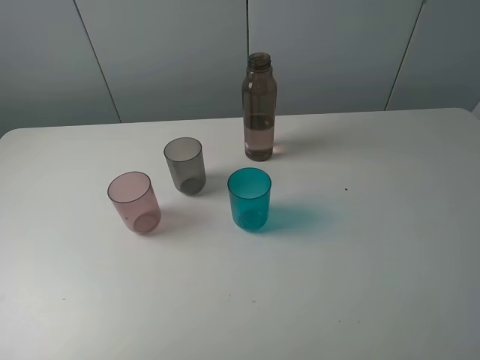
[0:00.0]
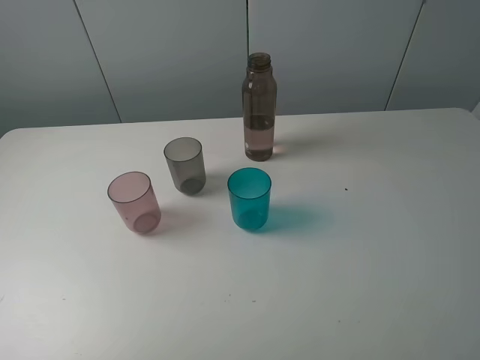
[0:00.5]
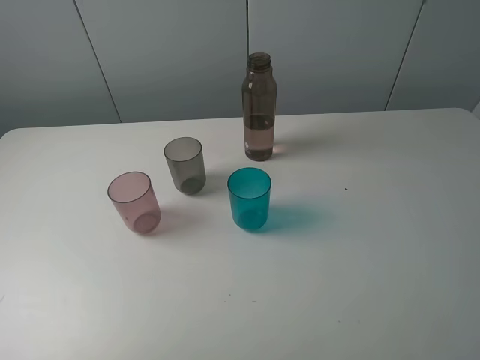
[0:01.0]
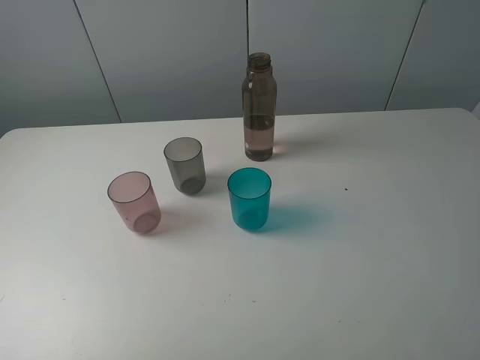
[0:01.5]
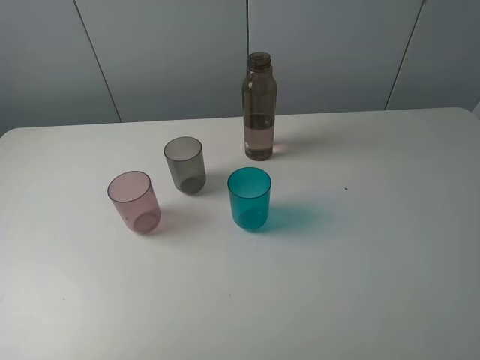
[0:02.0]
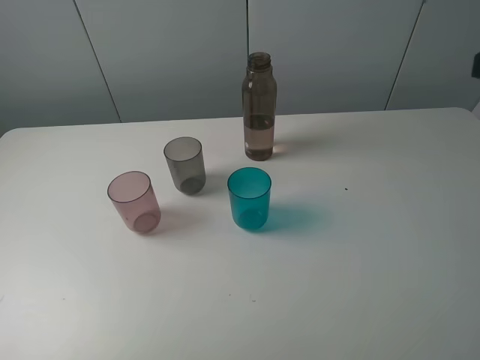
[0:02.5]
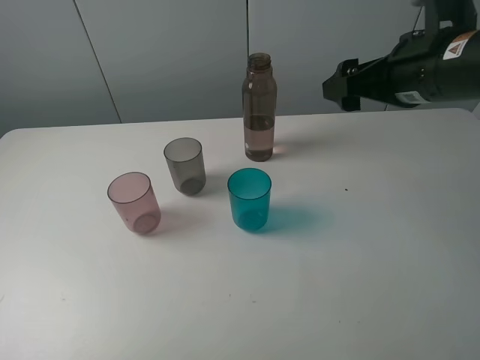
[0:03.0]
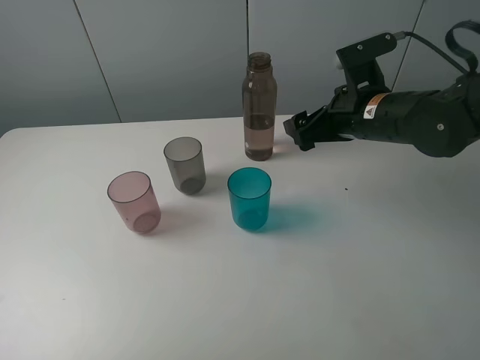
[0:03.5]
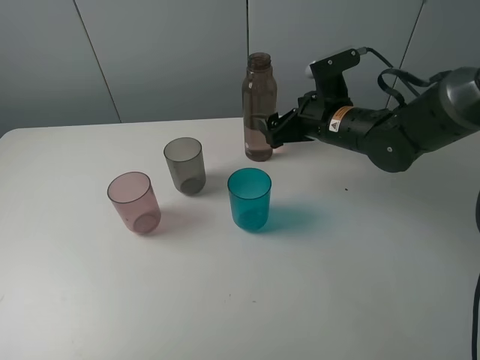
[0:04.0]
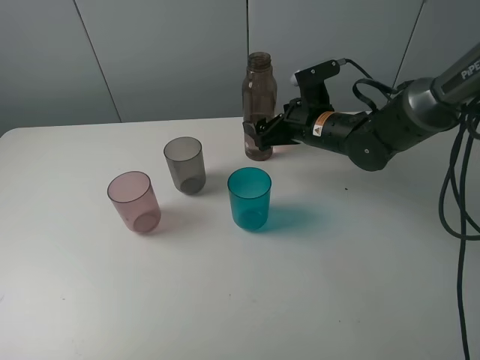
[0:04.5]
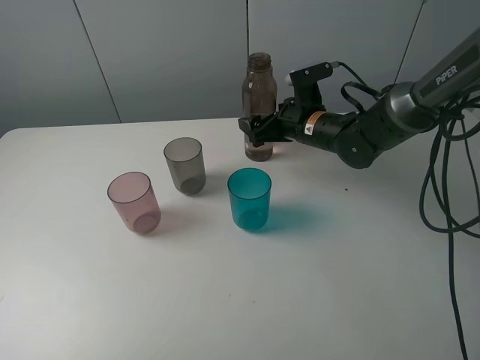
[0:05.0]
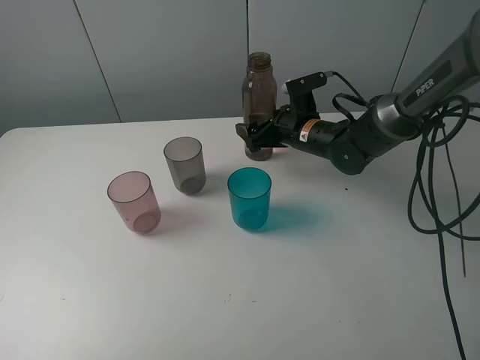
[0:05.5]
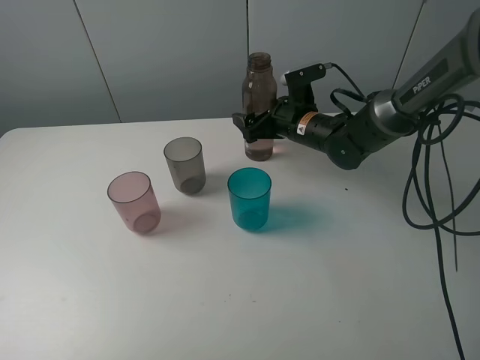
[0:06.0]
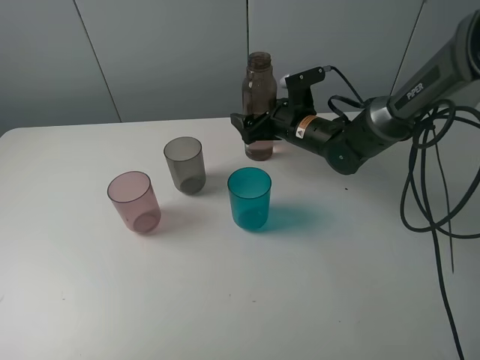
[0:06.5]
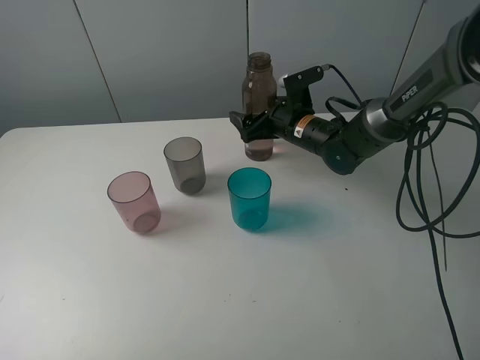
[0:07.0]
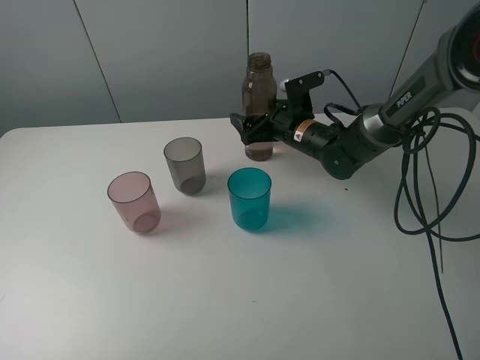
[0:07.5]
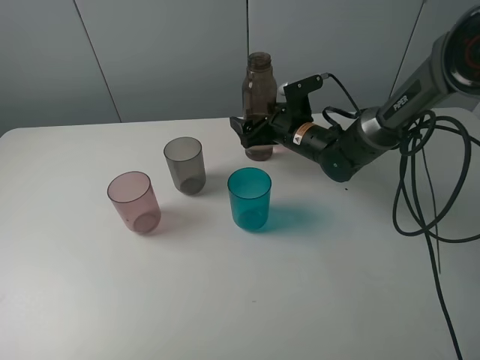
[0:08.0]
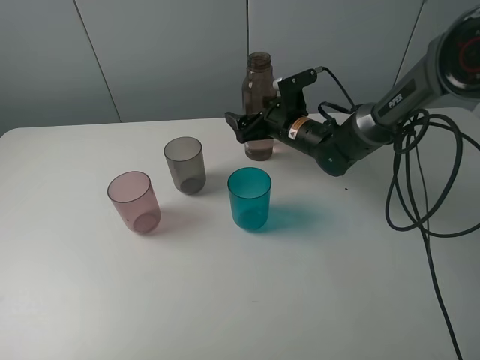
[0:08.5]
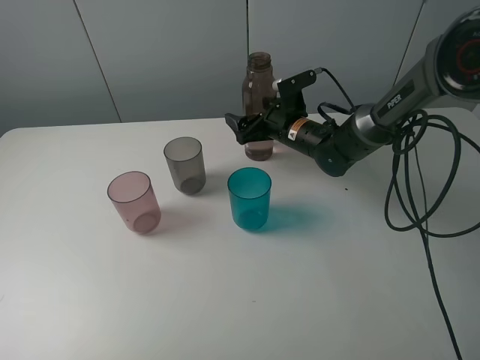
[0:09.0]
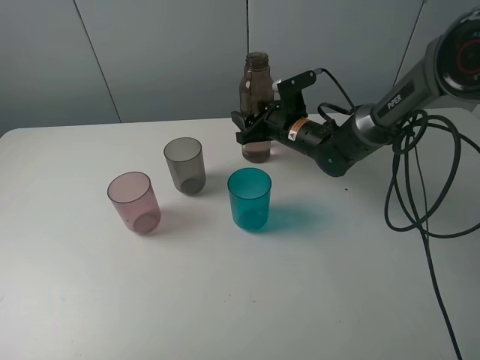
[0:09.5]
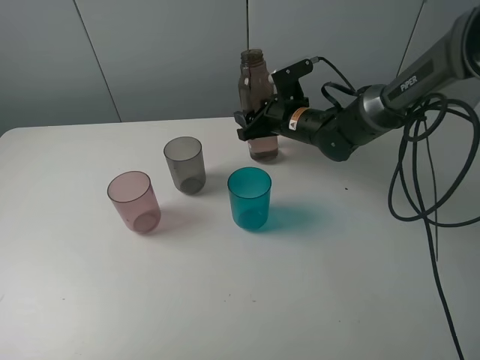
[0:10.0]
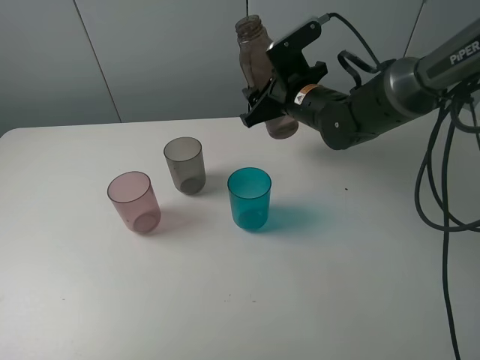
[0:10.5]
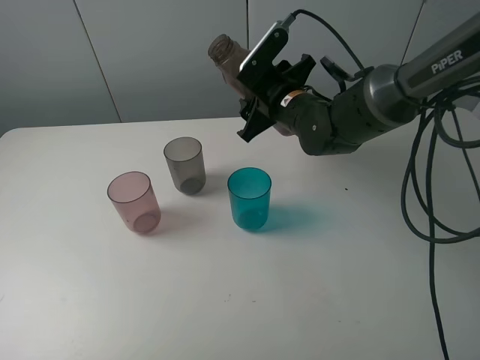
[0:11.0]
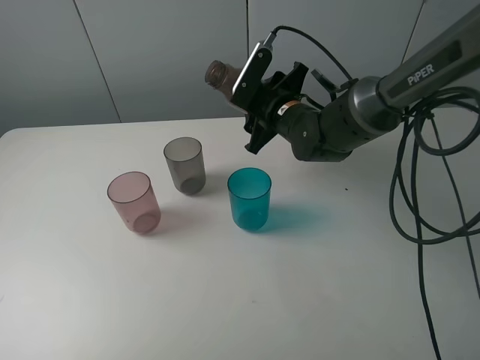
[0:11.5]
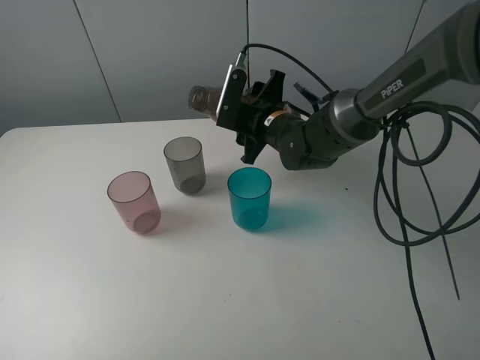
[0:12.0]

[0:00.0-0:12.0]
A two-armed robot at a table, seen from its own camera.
Task of the whole recording: pick up the bottle filled with water and pour water into the middle cup of the three cups.
Step, 0:00.0 to 0:09.5: Grasp the brown bottle with the right gripper.
0:02.0 to 0:04.0: The right gripper is displaced forward, downward and to the left by roughly 40 cm.
0:04.0 to 0:06.0: The right gripper travels forward by approximately 5 cm.
0:06.0 to 0:08.0: The grippers move only a little.
0:08.0 to 0:10.0: The right gripper closes.
0:10.0 to 0:12.0: The right gripper moves approximately 5 cm.

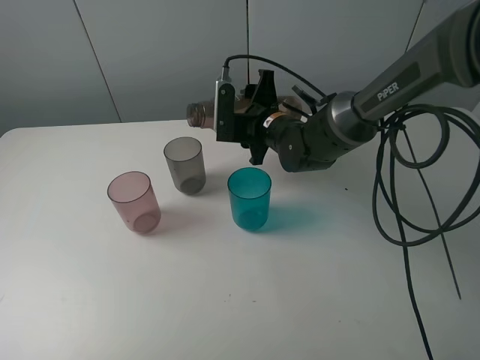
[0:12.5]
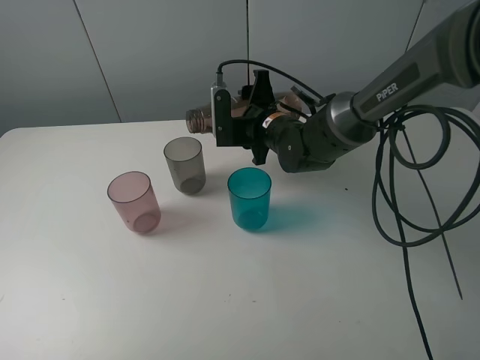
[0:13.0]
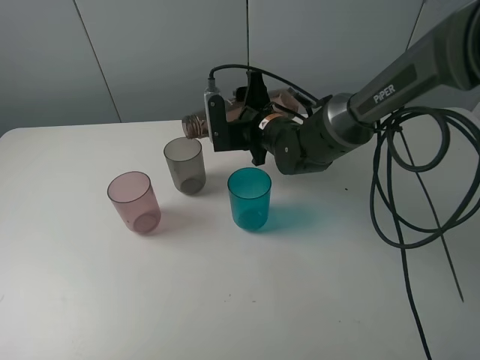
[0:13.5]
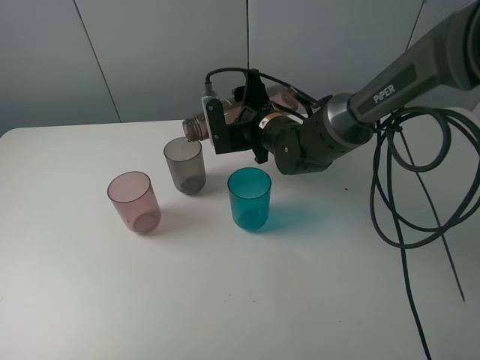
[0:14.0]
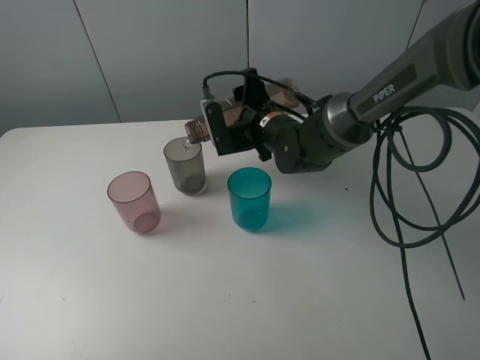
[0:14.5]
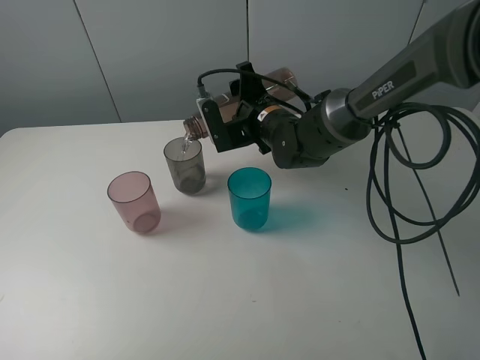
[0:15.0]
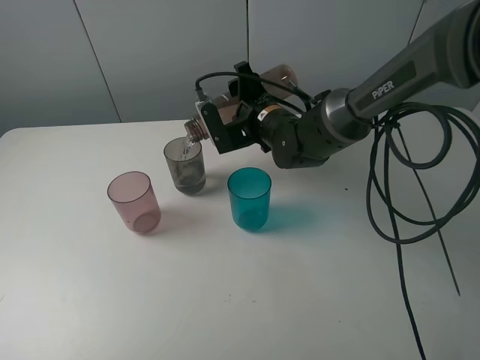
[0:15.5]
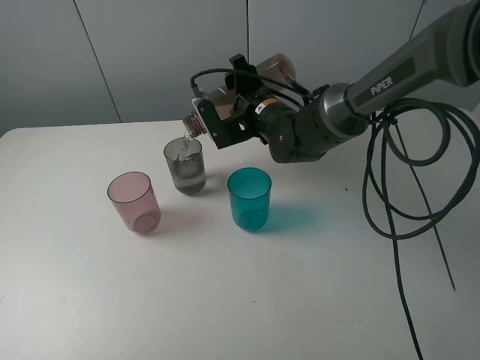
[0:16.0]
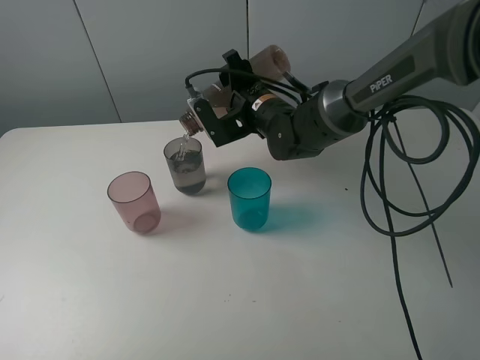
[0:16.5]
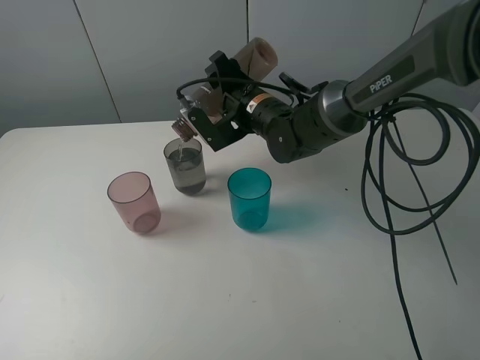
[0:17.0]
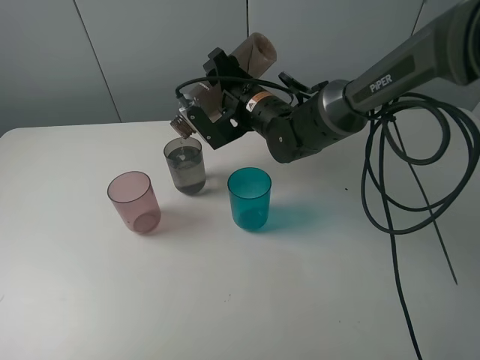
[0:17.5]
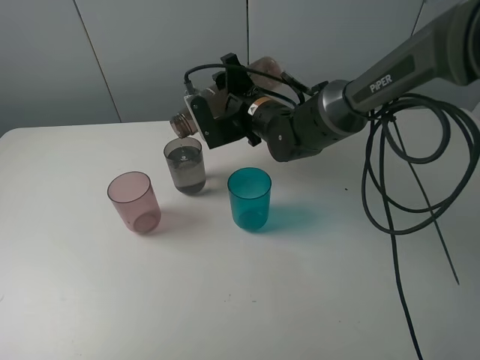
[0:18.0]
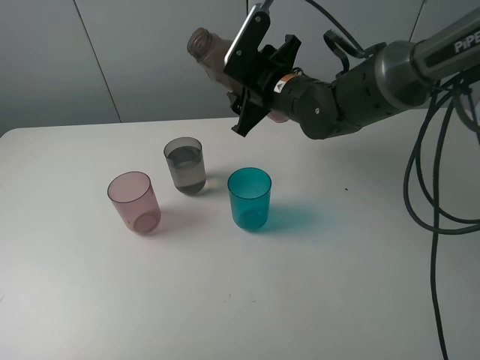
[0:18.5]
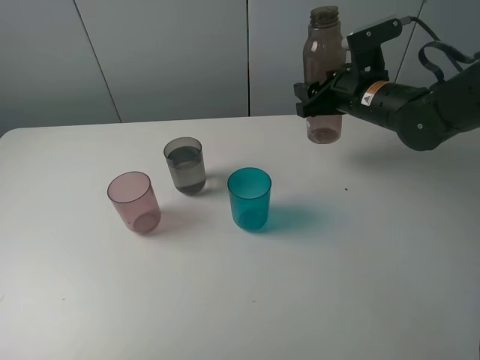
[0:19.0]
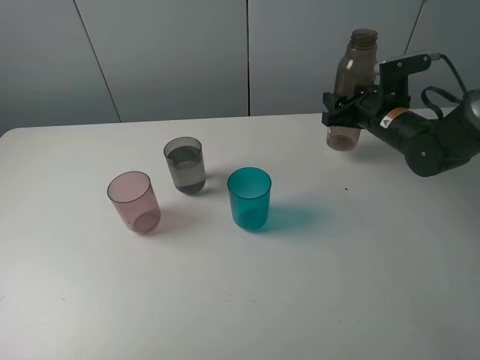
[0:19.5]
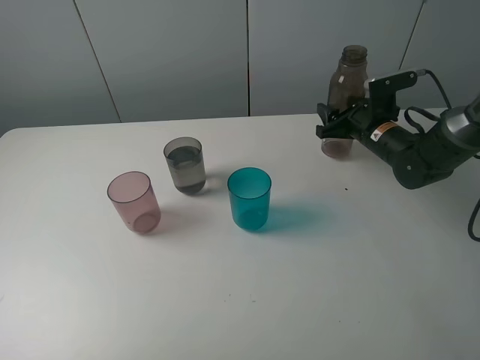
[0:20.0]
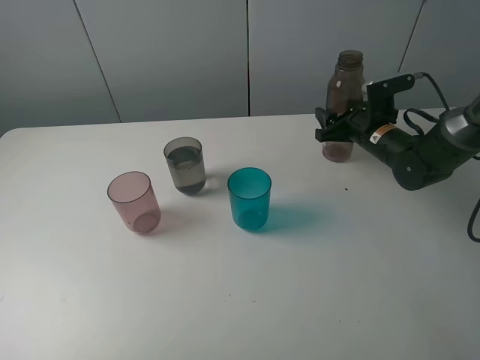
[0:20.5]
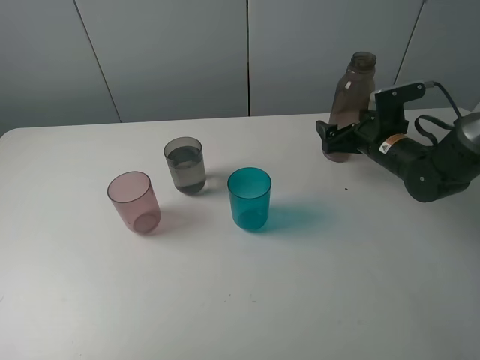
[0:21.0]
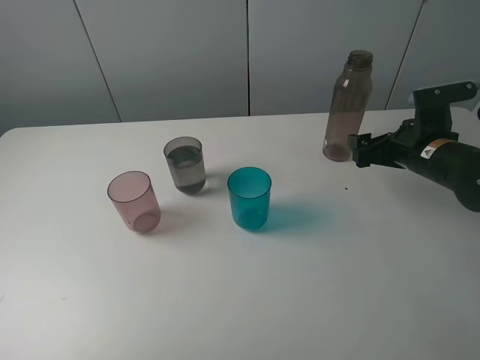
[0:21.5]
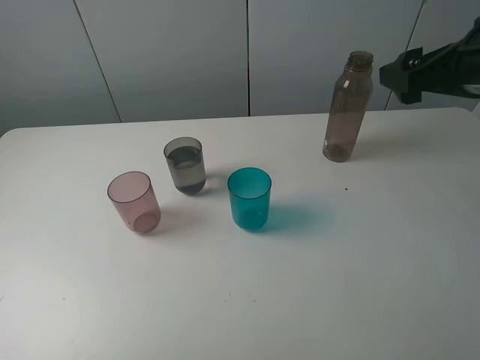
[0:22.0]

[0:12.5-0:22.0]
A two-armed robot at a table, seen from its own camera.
Task of the whole recording: pick up the bottle filled with water and pour water into the middle cup of the three cups.
Step, 0:13.5 to 0:21.0: Place the brown bottle with the right gripper.
0:12.5 to 0:14.5: There are only small adjustments of the grippers.
0:14.5 to 0:16.5: The grippers stay close to where they were, moving slightly.
0:16.5 to 0:18.0: There are only small adjustments of the grippers.
0:18.0 to 0:20.0: The right gripper moves to the right, roughly 20 cm.
0:20.0 to 0:22.0: The right gripper is displaced upward and backward by some 25 cm, and opens.

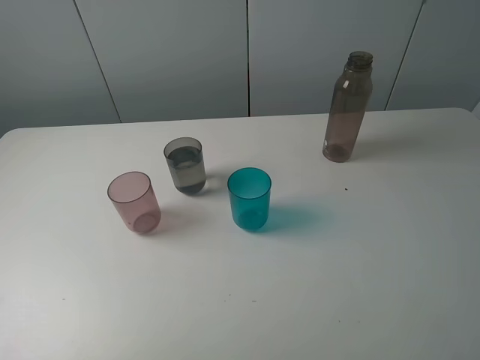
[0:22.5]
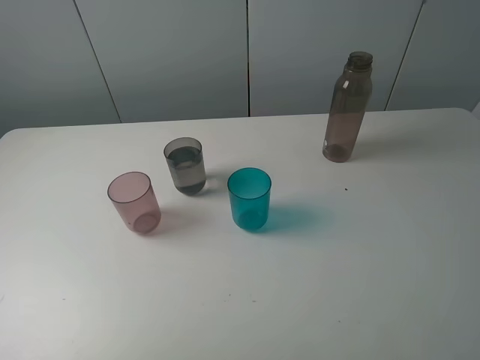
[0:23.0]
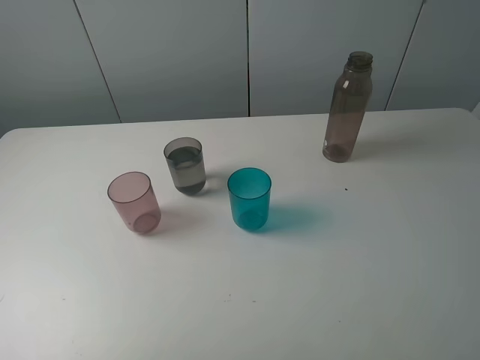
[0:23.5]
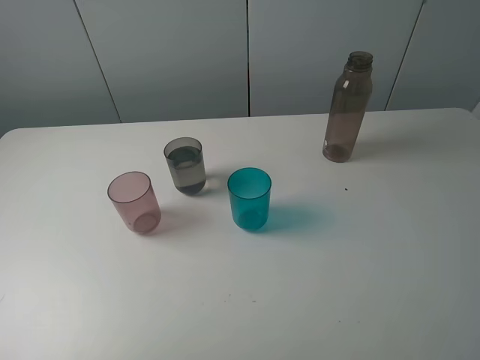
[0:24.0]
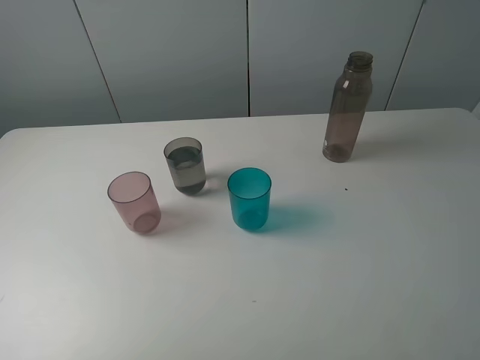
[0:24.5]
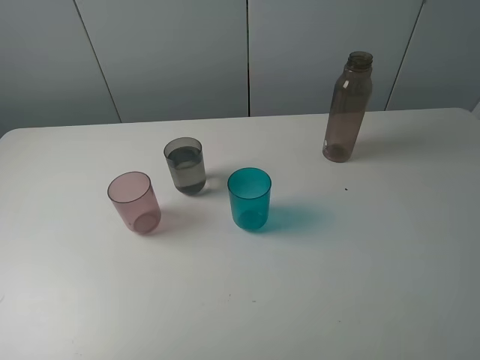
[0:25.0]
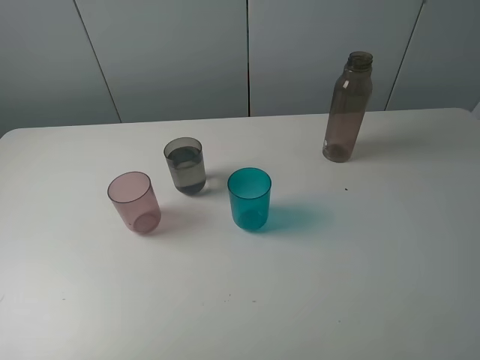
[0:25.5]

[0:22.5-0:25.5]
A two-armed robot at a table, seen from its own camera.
Task of the whole recording: pick up the bottle filled with water and pour water into the middle cup of the three cups.
0:24.0 to 0:25.5: Neither gripper changes place.

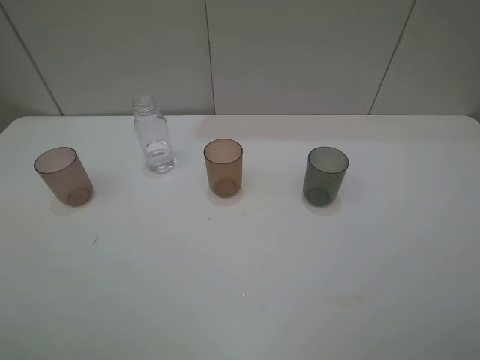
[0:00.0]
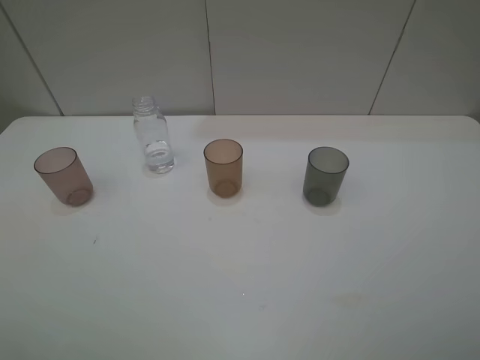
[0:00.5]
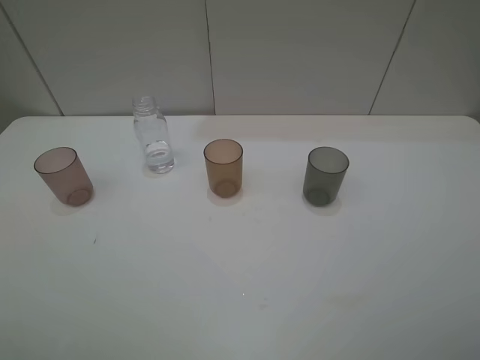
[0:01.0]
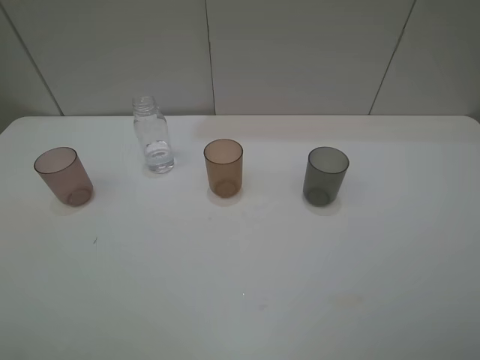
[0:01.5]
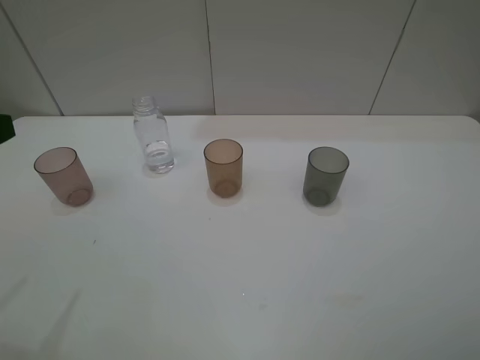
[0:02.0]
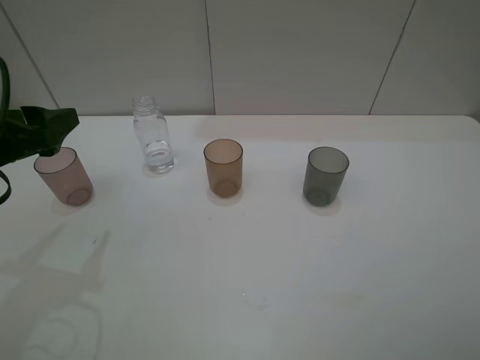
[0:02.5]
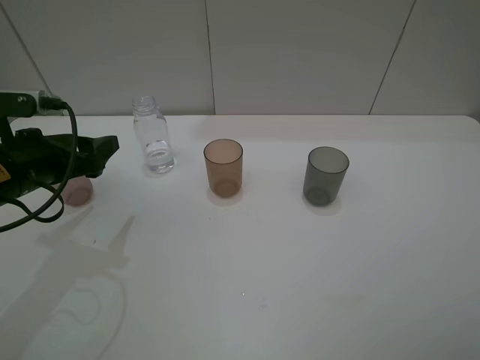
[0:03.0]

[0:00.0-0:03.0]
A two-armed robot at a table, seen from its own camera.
Task of the whole recording: pick up the bottle filled with water and pour water into the middle cup of the three cups.
0:01.5 to 0:03.0: The left gripper travels forward and downward by roughly 25 cm.
